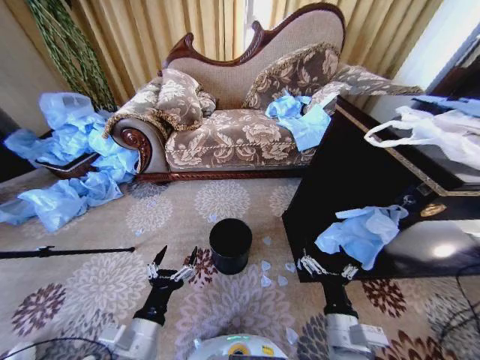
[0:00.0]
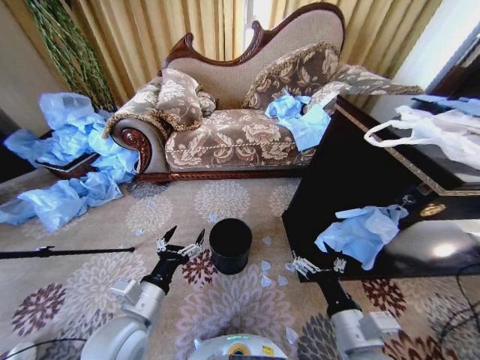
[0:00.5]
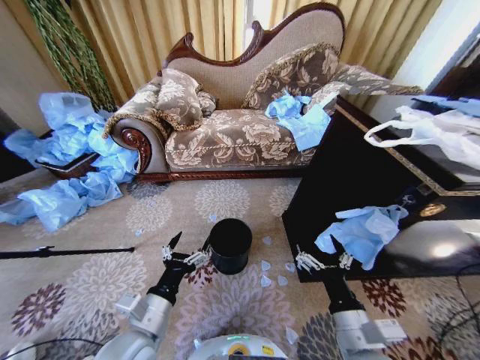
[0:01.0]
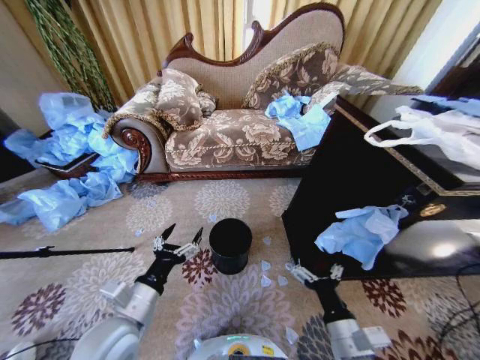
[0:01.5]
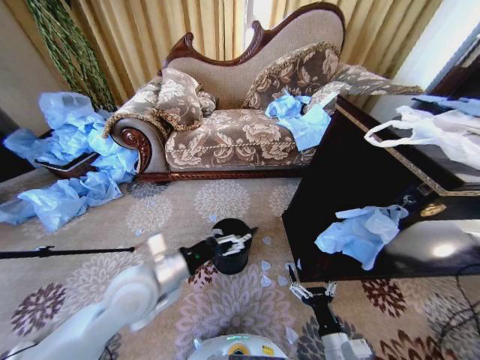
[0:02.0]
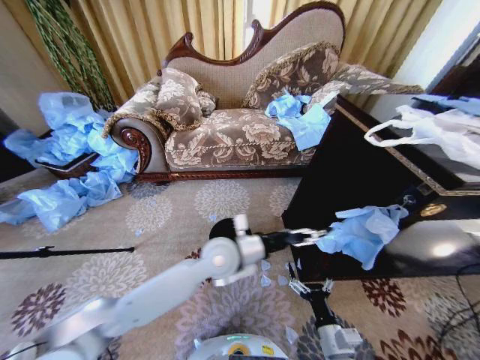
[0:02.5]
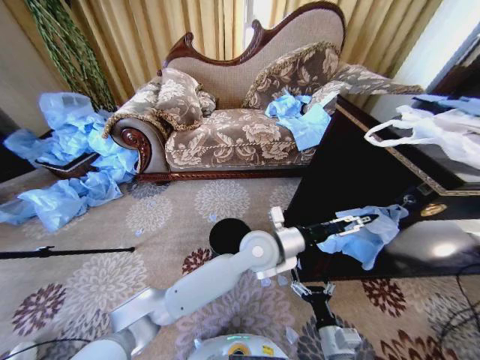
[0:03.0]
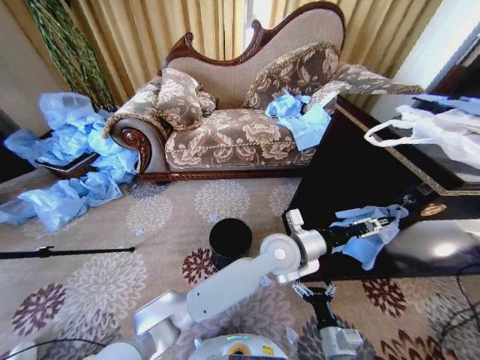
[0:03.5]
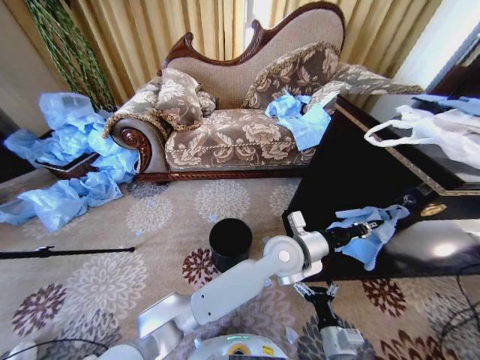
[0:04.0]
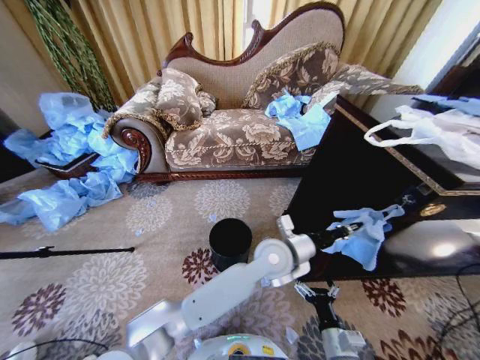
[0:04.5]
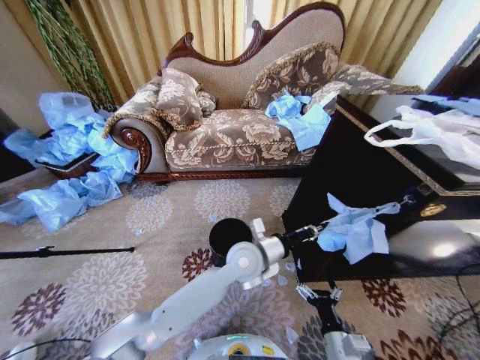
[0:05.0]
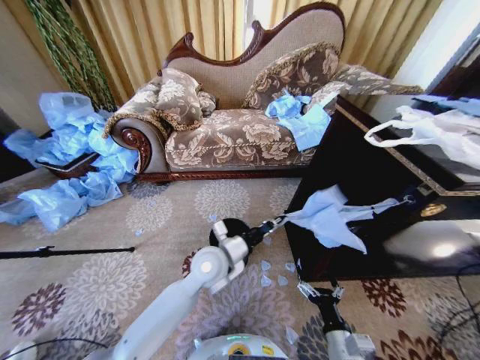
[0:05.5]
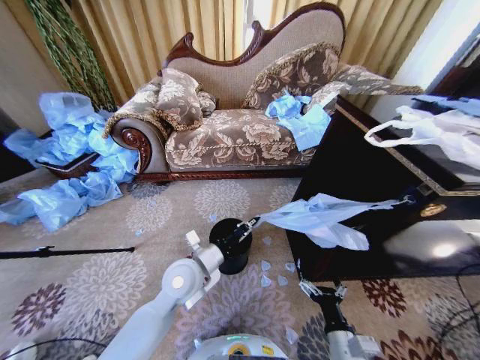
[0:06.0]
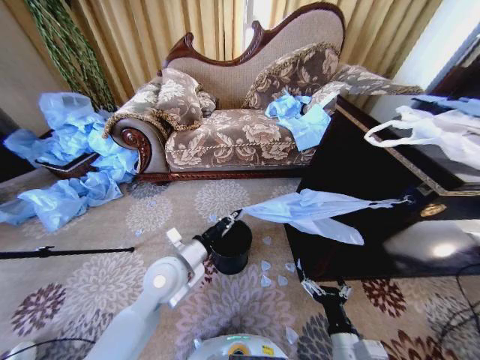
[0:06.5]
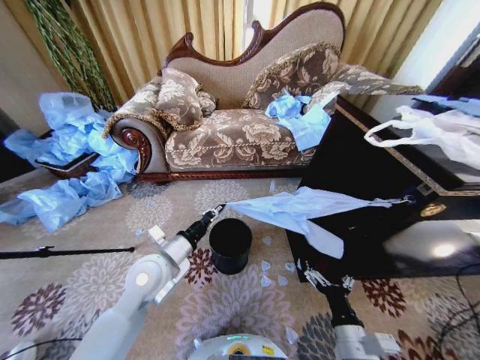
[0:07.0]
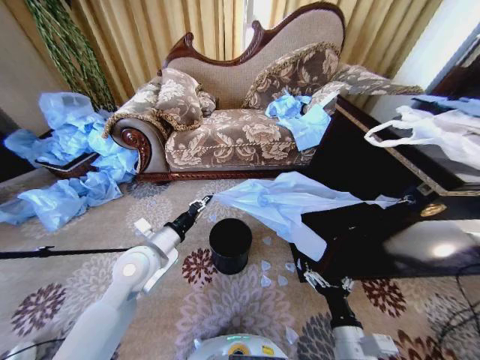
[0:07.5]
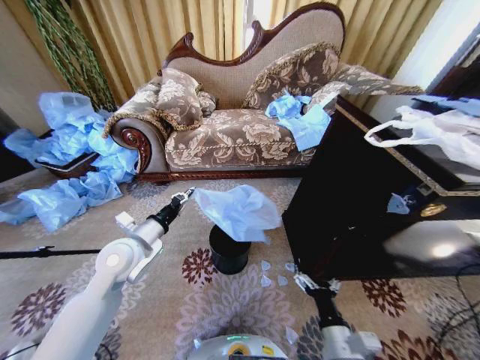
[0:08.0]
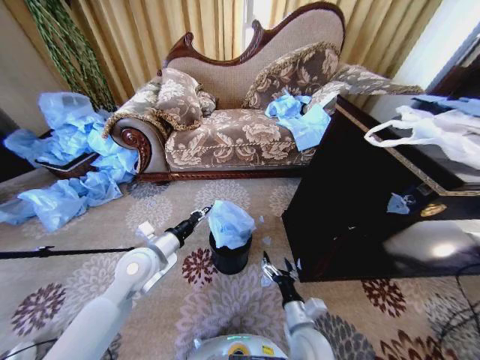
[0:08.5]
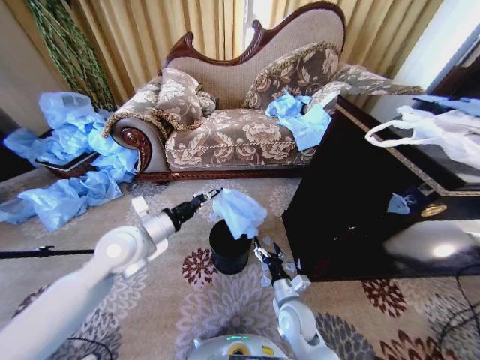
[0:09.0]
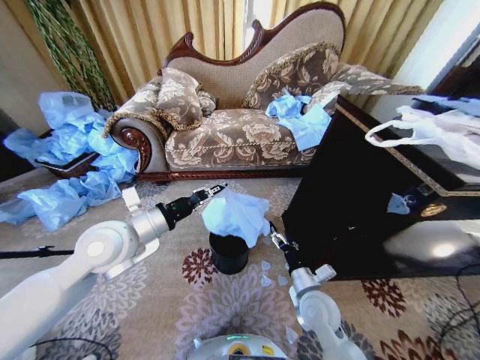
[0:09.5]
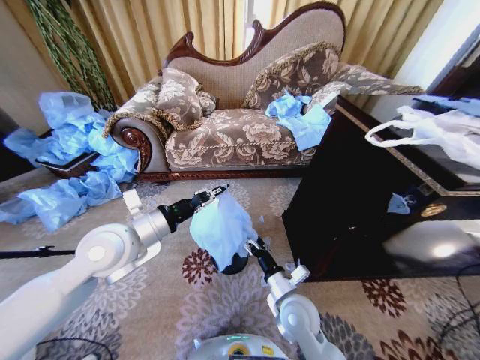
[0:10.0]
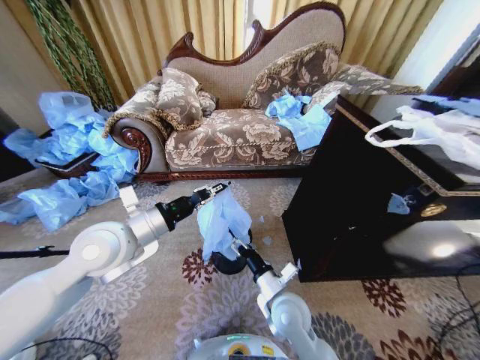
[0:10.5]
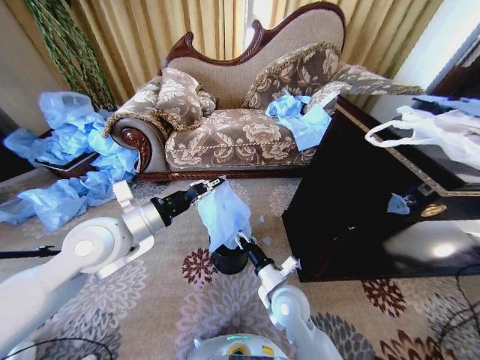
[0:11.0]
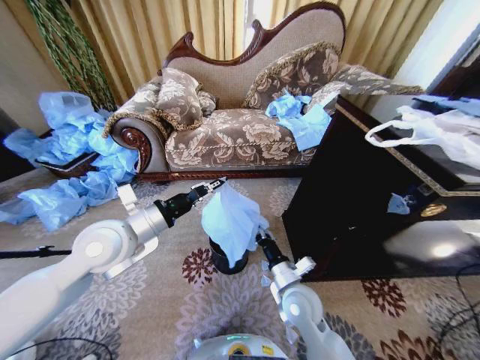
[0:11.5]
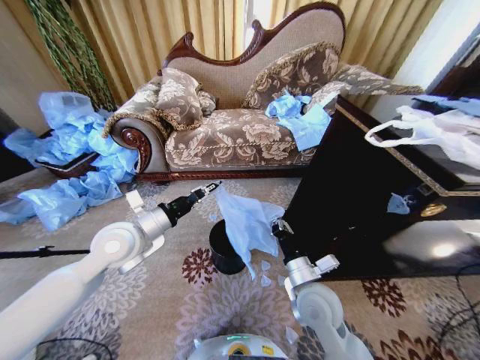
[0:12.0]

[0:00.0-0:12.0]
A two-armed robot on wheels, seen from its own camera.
Task of the whole recording: Place a garbage bag over the trash bin.
0:02.0 to 0:04.0: The left gripper is displaced to the right by roughly 30 cm, and closes.
0:04.0 to 0:06.0: The left gripper shifts approximately 25 cm to the left.
0:06.0 to 0:08.0: The left gripper heads to the left, covering some 15 cm.
0:08.0 to 0:10.0: The left gripper heads upward, covering roughly 10 cm. The right gripper travels forward and to the left by about 15 cm.
0:10.0 to 0:12.0: The right gripper shifts approximately 5 cm upward, and closes up.

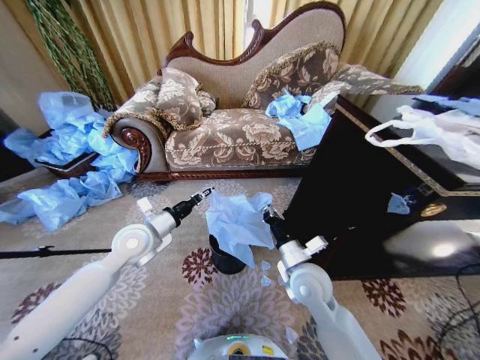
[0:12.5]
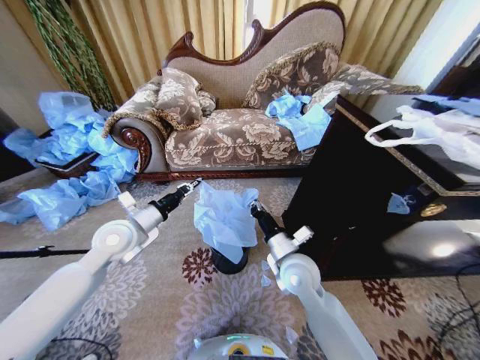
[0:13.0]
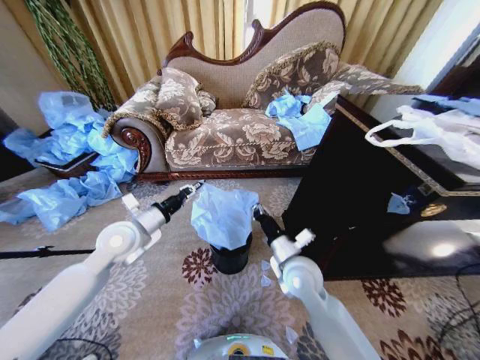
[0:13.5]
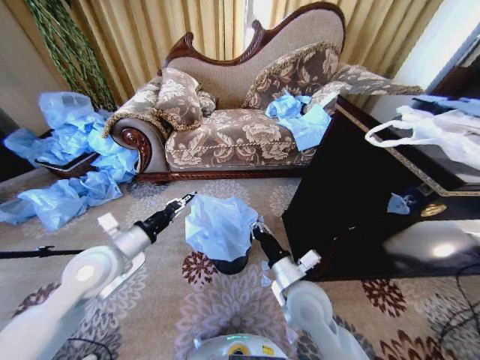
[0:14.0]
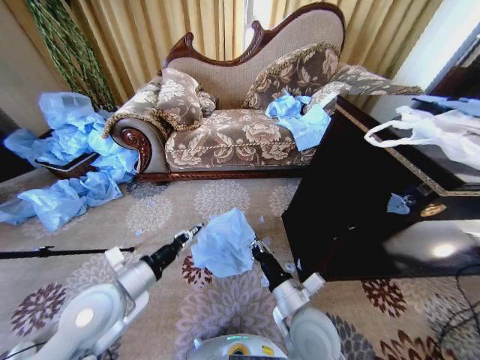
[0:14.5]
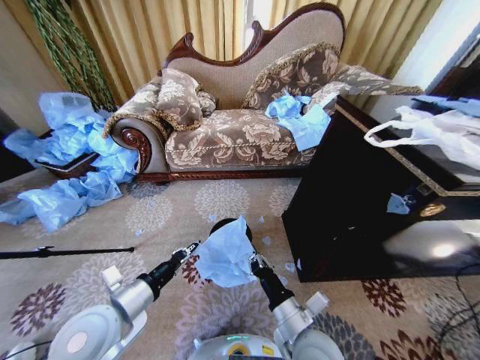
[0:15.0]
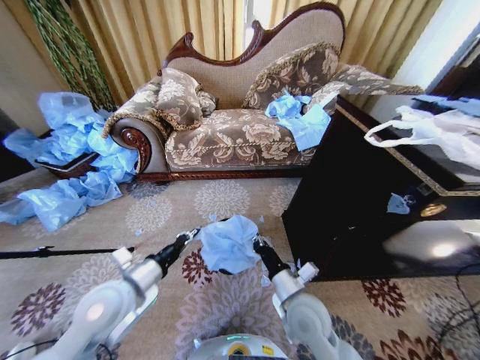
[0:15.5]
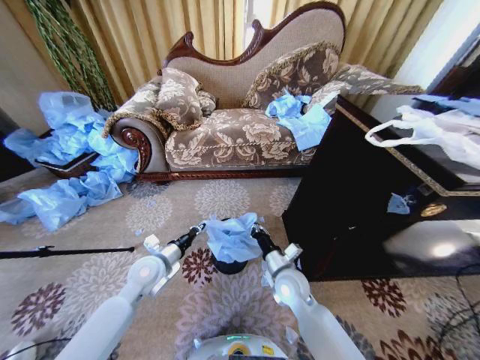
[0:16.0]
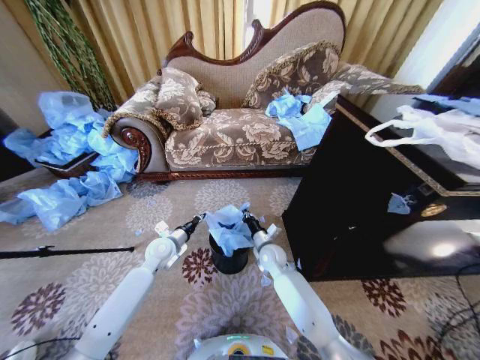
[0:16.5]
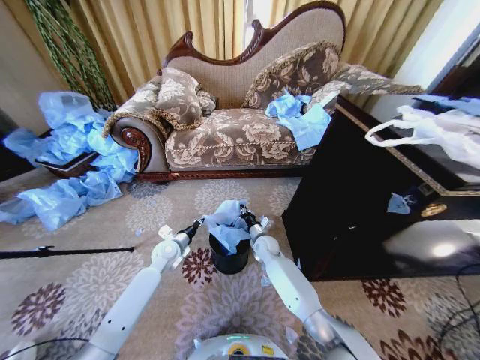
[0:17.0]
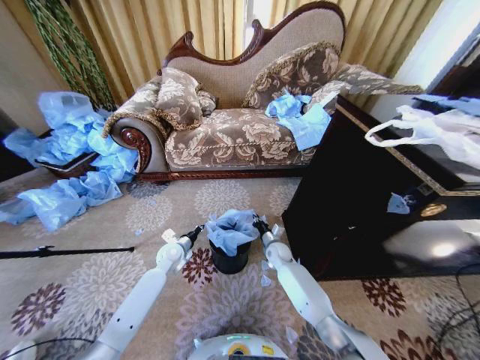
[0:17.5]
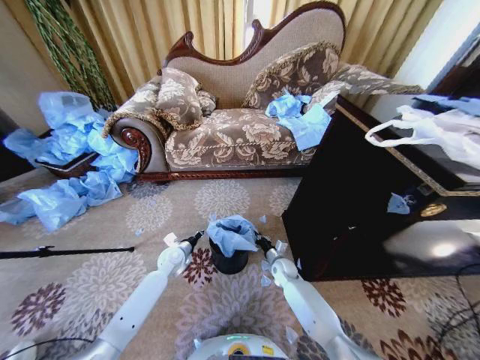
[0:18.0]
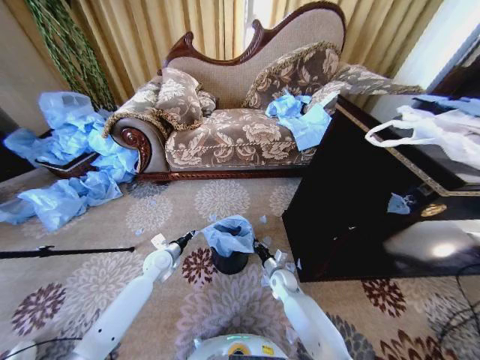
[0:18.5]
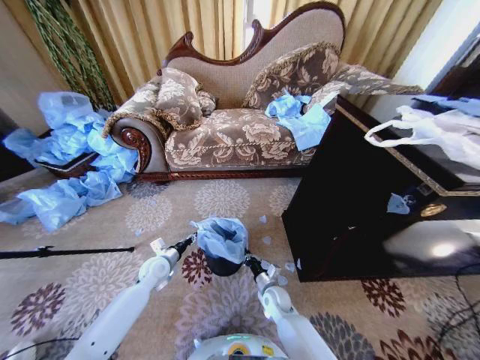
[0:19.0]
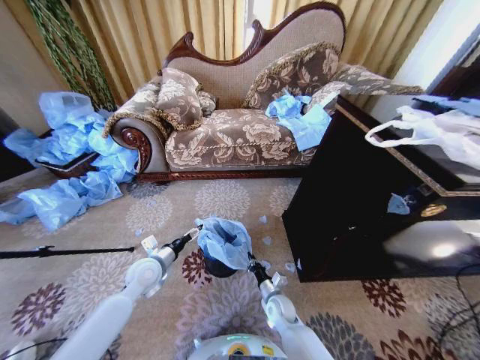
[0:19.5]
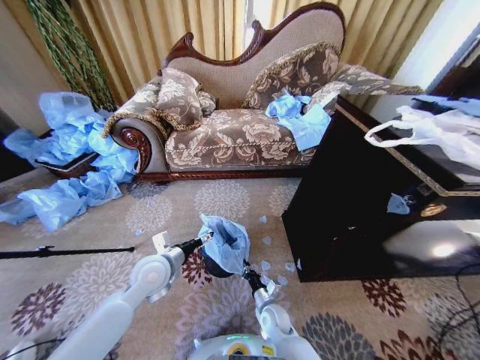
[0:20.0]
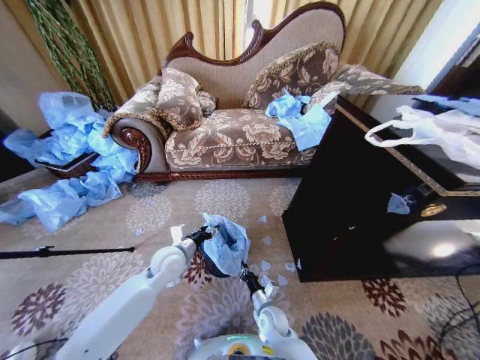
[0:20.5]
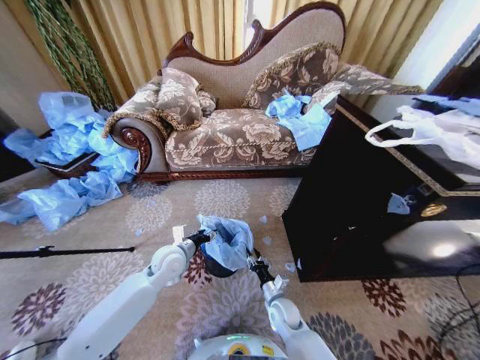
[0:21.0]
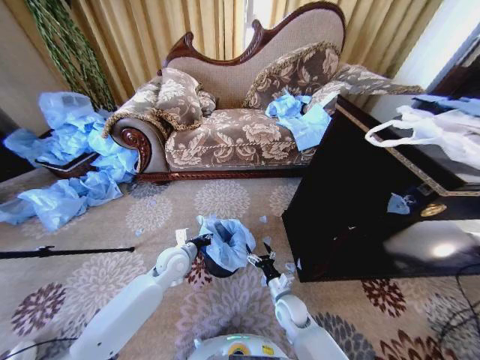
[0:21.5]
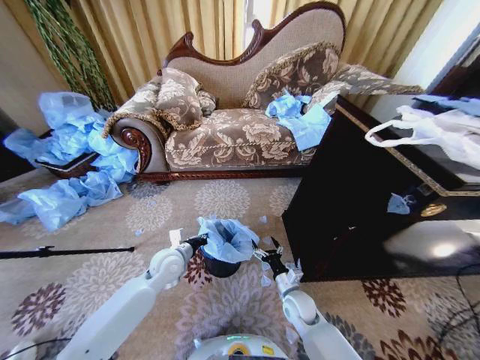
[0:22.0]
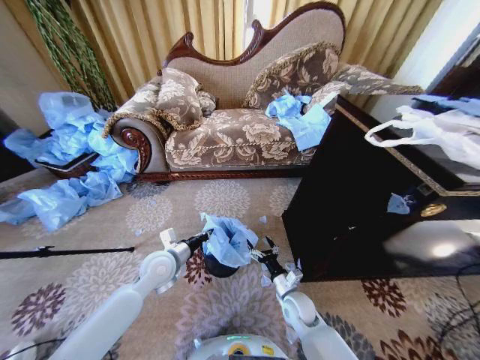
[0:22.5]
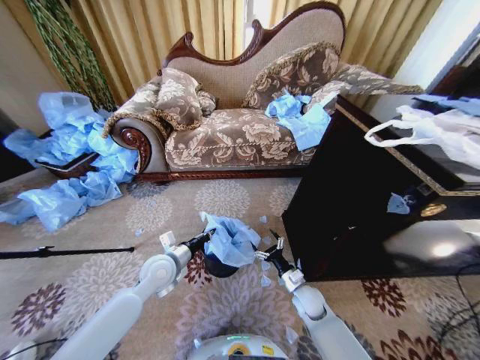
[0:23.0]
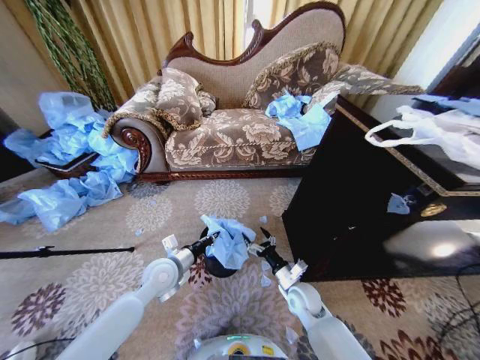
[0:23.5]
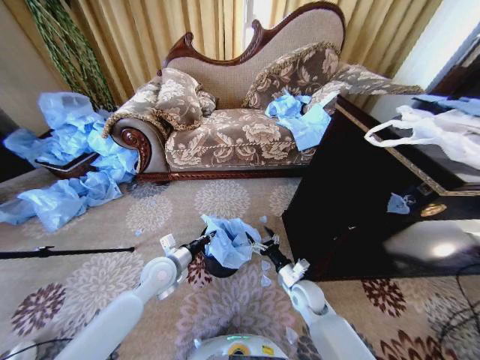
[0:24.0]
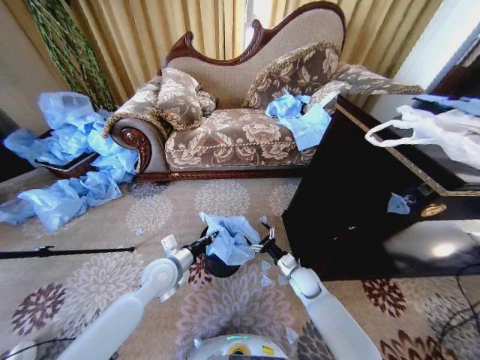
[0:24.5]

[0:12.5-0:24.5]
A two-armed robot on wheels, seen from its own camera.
Task of the whole recording: Place a garbage bag over the trash bin.
0:12.5 to 0:14.5: Both grippers move backward, roughly 10 cm.
0:14.5 to 0:16.5: The two grippers go approximately 25 cm forward and downward.
0:16.5 to 0:18.5: The right gripper travels downward and to the right by approximately 15 cm. The left gripper goes approximately 5 cm downward.
0:18.5 to 0:20.5: The left gripper is displaced upward and to the right by roughly 15 cm, and opens its fingers; the right gripper travels backward and to the left by about 15 cm.
0:20.5 to 0:22.5: The left gripper closes, while the right gripper travels to the right and upward by roughly 10 cm, and opens.
0:22.5 to 0:24.5: The right gripper is displaced forward by about 10 cm.

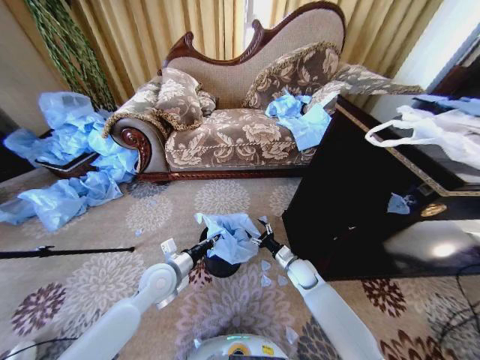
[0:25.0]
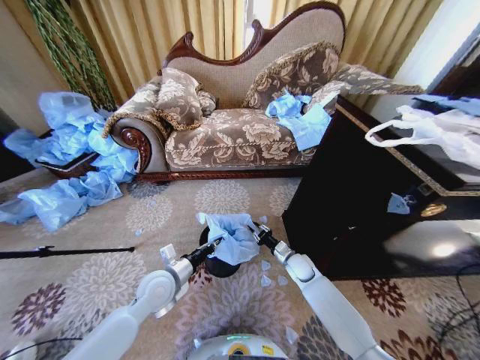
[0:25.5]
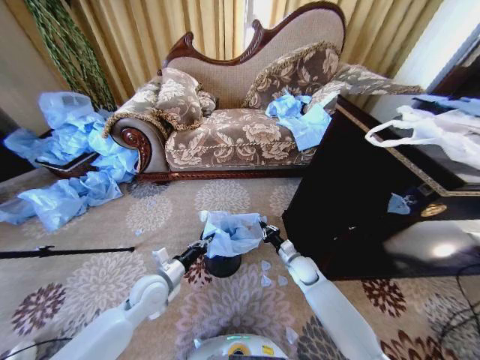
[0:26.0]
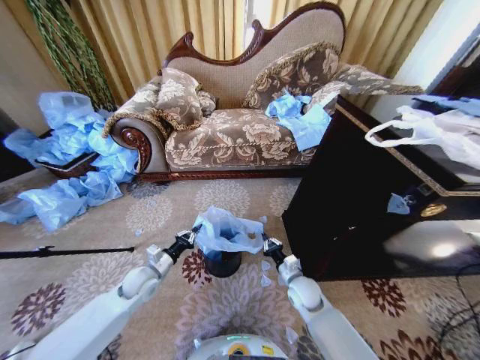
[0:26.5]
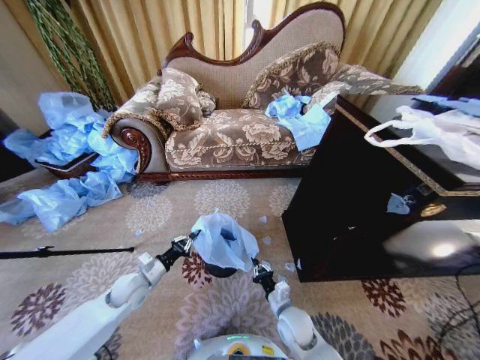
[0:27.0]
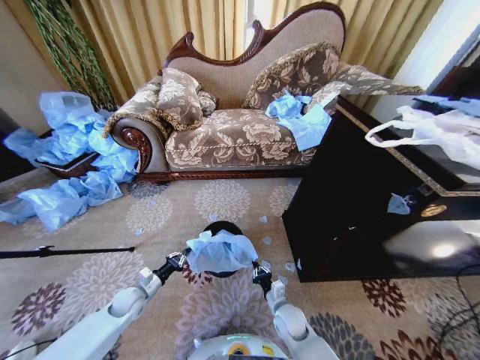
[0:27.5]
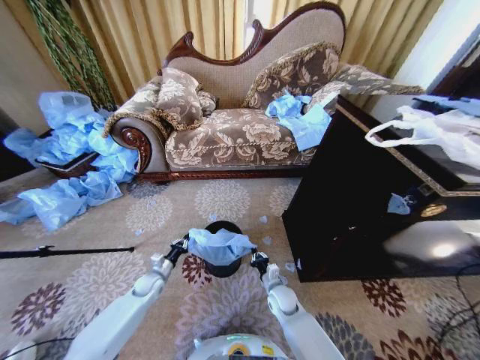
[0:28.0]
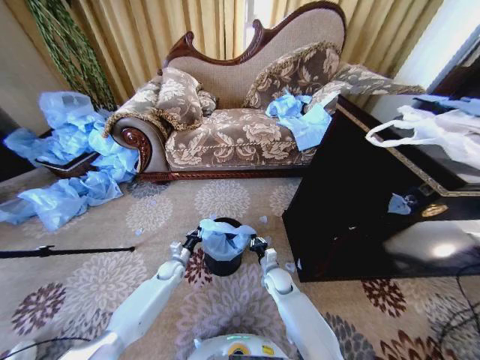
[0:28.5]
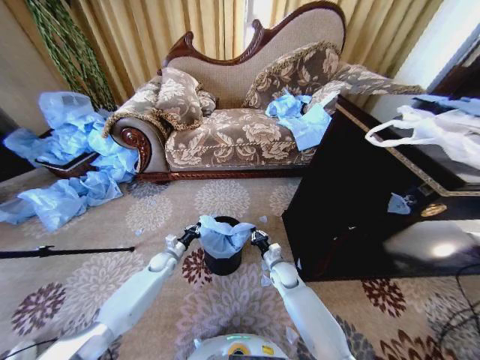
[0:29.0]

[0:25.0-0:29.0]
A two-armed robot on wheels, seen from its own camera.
Task of the whole recording: Place a garbage bag over the trash bin.
0:25.0 to 0:27.0: The right gripper moves backward and to the left, roughly 15 cm, and closes up; the left gripper moves to the left and downward, roughly 10 cm.
0:27.0 to 0:29.0: The left gripper goes approximately 15 cm forward and downward. Meanwhile the right gripper shifts approximately 15 cm forward.
